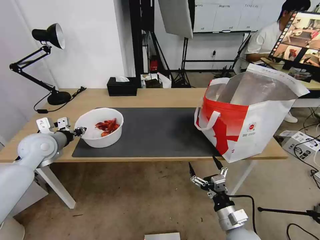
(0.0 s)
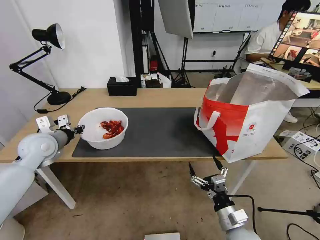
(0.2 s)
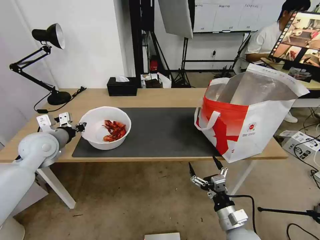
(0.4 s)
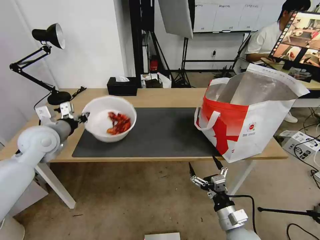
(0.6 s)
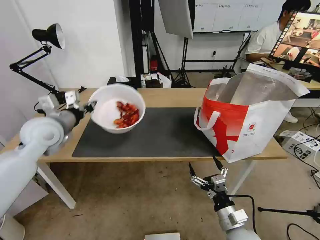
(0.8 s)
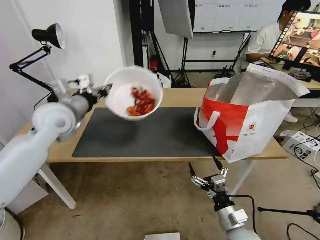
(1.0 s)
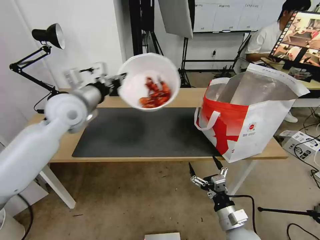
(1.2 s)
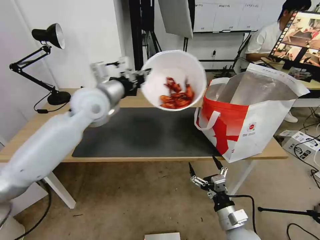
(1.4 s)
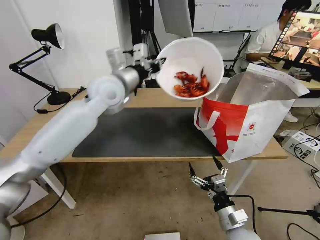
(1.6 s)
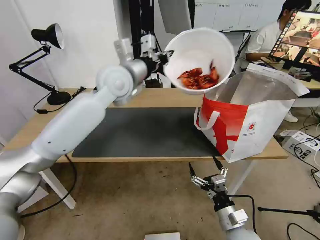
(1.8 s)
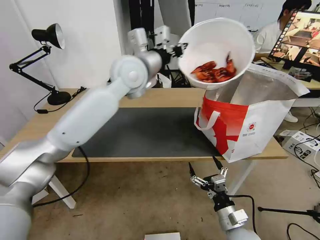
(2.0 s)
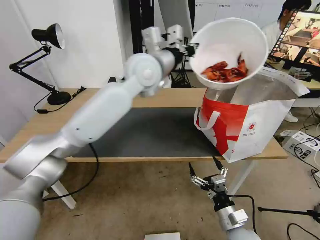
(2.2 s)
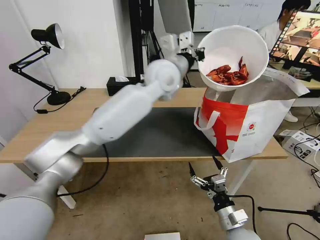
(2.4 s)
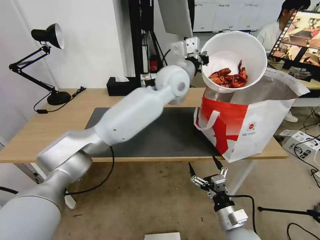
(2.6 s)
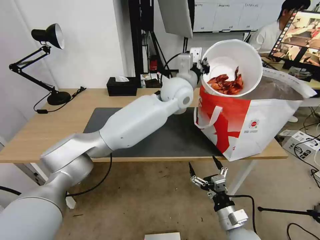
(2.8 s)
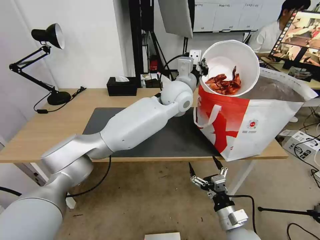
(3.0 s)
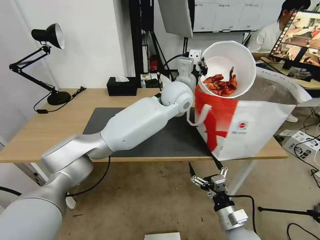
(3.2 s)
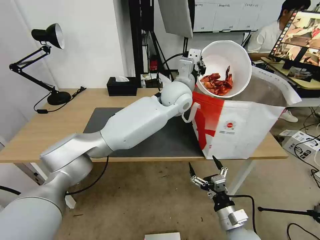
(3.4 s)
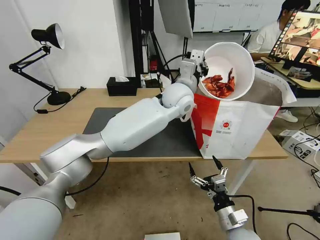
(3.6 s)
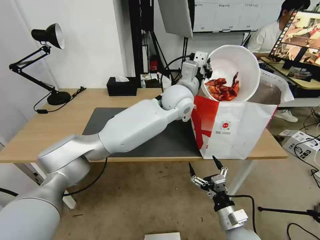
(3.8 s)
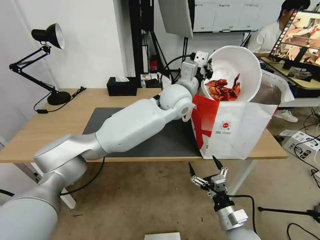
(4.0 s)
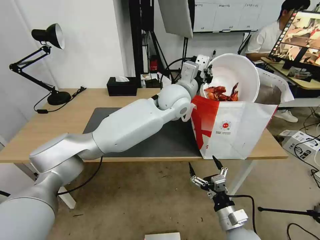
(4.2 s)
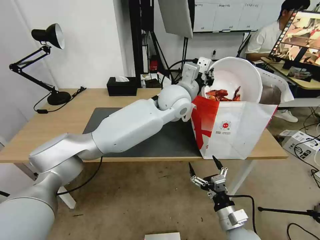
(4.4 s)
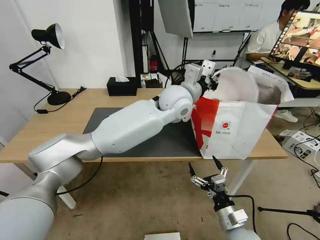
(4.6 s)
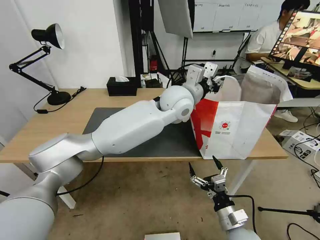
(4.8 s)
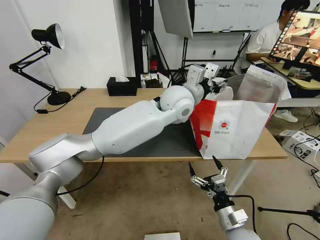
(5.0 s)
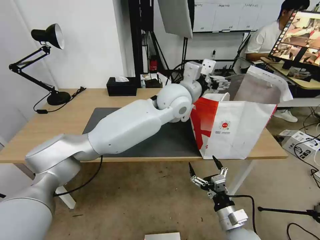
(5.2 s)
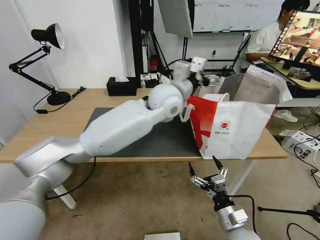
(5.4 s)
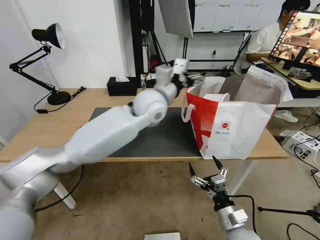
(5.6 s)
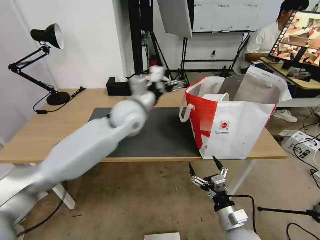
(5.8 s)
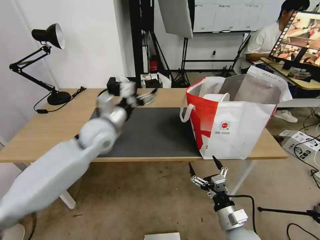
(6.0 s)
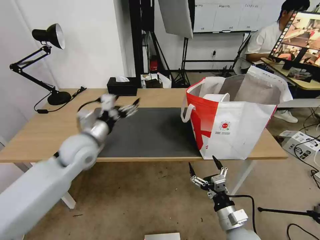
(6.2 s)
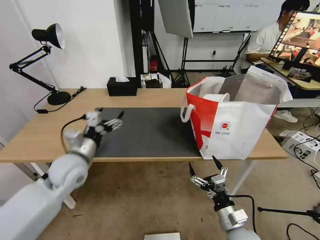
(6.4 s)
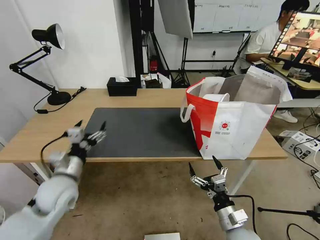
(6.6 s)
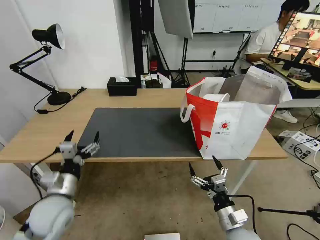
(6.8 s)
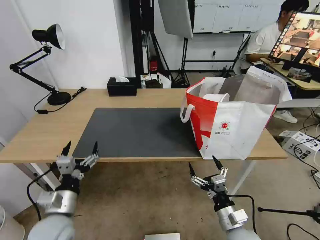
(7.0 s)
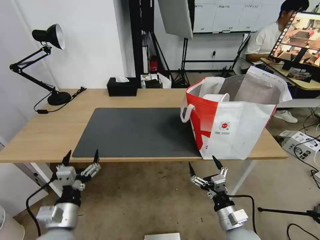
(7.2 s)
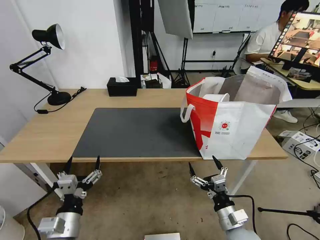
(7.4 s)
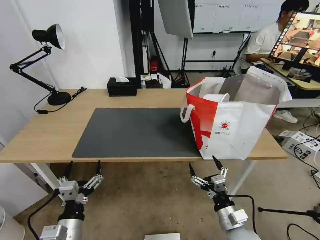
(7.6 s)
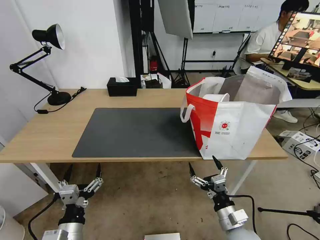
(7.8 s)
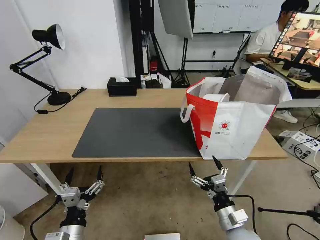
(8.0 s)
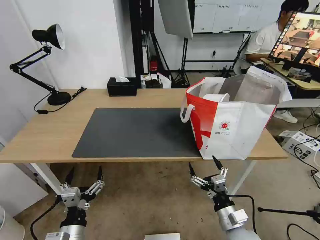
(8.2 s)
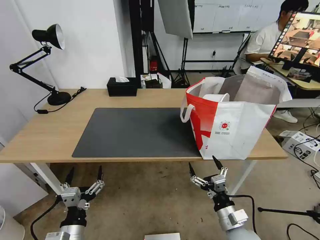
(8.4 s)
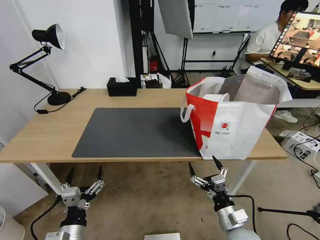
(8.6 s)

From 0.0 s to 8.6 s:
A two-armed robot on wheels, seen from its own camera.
Task of the whole recording: Pick up the trash from the table and place it into the takeout bag.
From 0.0 s to 1.4 s: The left gripper heads to the right and upward, covering approximately 25 cm.
From 1.4 s to 2.8 s: The left gripper goes roughly 25 cm to the right.
From 2.8 s to 4.4 s: The grippers make only small movements.
From 4.4 s to 5.8 s: The left gripper travels to the left by about 15 cm, and opens its fingers.
From 5.8 s to 7.2 s: The left gripper travels backward, downward and to the left by approximately 40 cm.
From 7.2 s to 8.6 s: The left gripper shifts by about 5 cm.

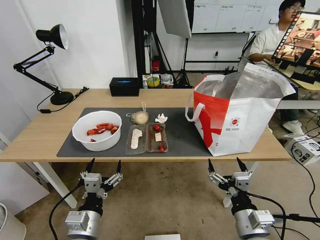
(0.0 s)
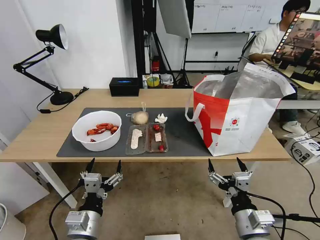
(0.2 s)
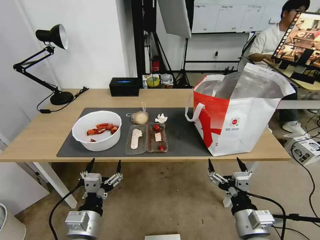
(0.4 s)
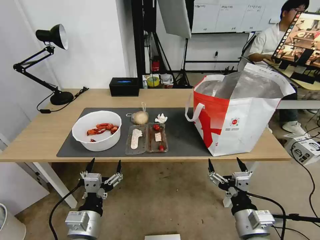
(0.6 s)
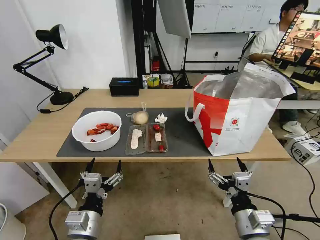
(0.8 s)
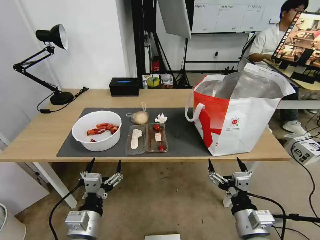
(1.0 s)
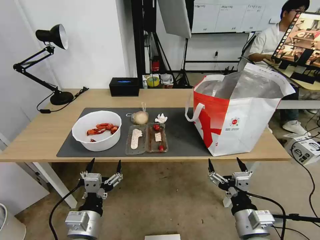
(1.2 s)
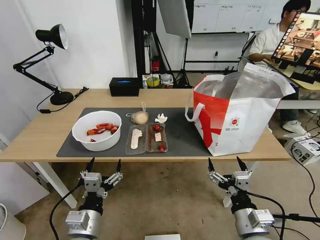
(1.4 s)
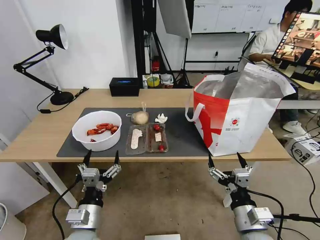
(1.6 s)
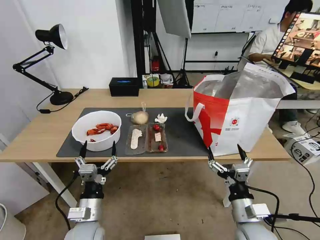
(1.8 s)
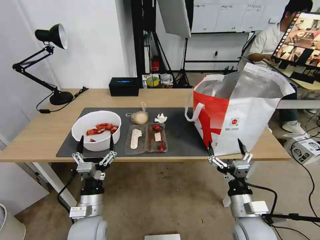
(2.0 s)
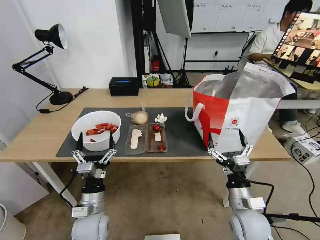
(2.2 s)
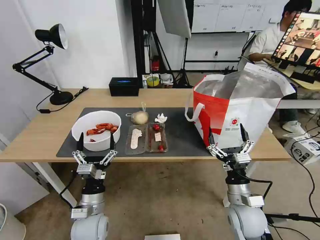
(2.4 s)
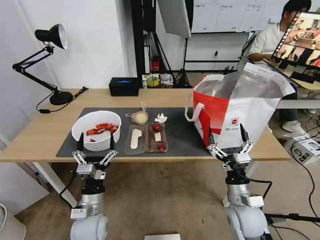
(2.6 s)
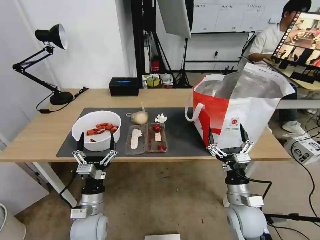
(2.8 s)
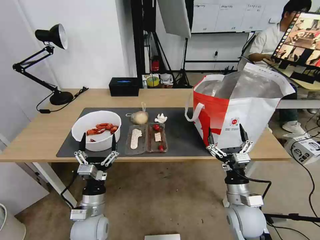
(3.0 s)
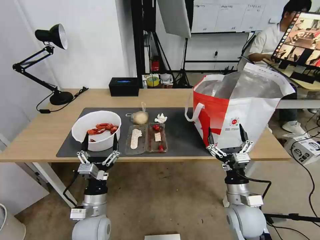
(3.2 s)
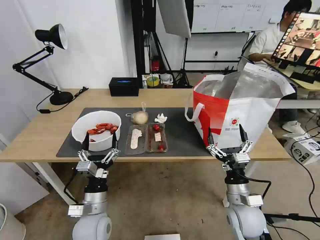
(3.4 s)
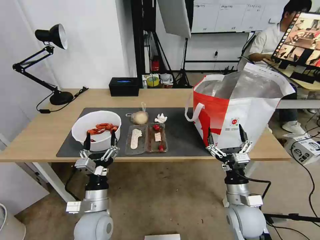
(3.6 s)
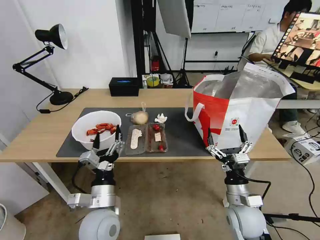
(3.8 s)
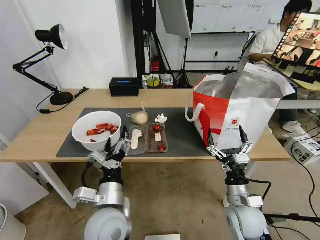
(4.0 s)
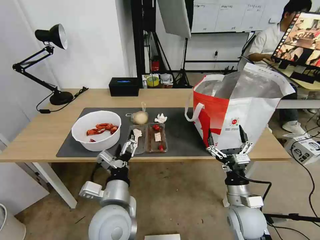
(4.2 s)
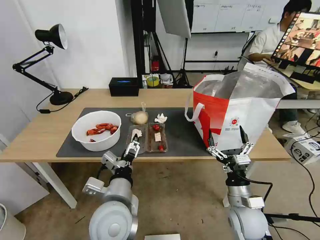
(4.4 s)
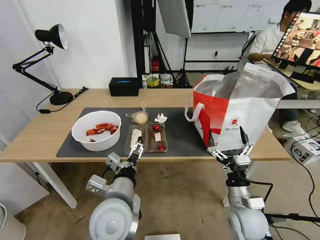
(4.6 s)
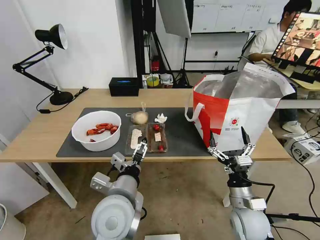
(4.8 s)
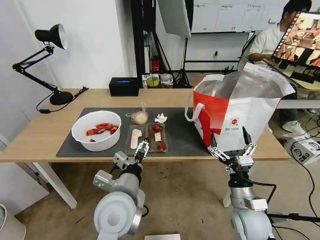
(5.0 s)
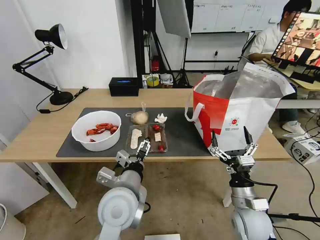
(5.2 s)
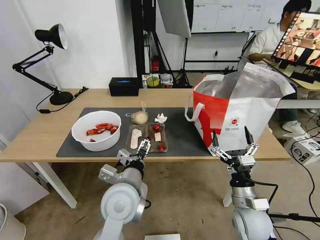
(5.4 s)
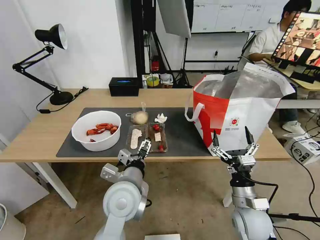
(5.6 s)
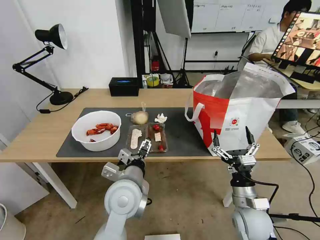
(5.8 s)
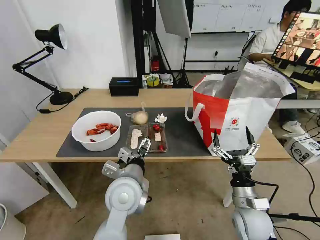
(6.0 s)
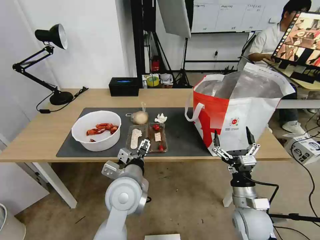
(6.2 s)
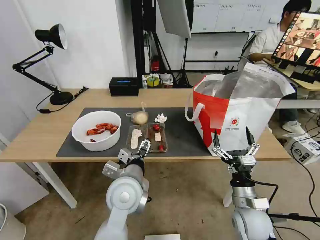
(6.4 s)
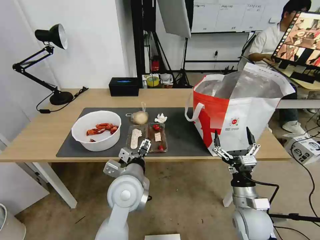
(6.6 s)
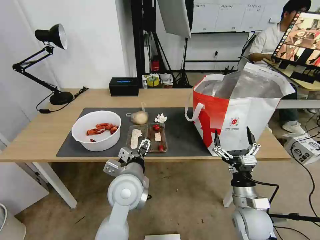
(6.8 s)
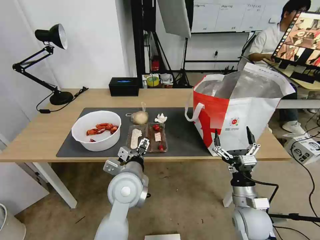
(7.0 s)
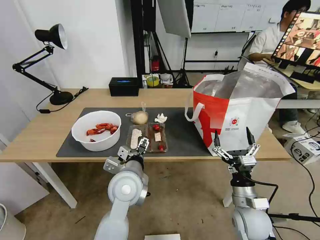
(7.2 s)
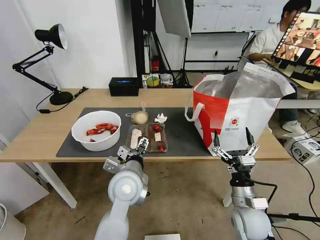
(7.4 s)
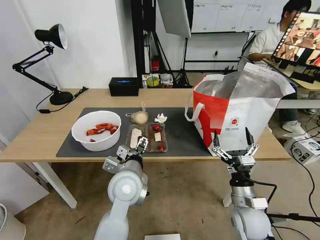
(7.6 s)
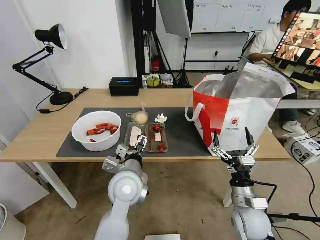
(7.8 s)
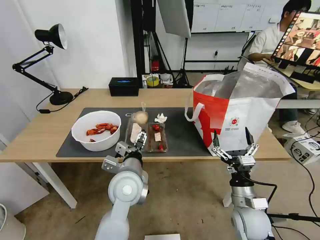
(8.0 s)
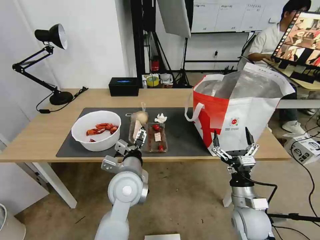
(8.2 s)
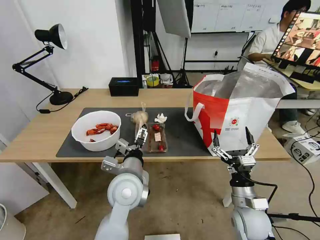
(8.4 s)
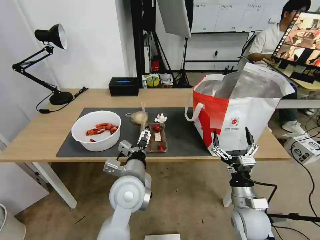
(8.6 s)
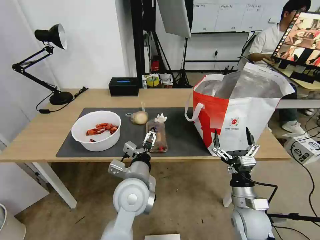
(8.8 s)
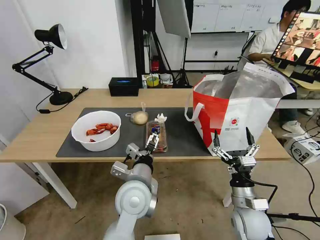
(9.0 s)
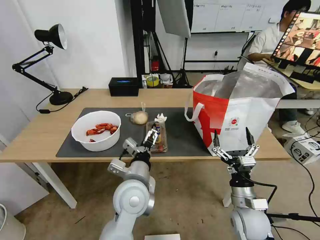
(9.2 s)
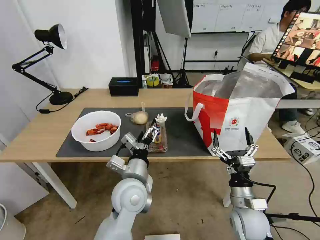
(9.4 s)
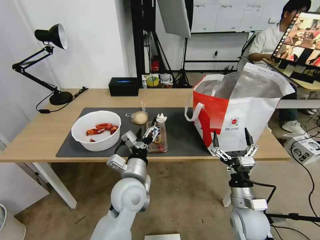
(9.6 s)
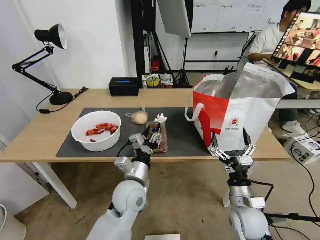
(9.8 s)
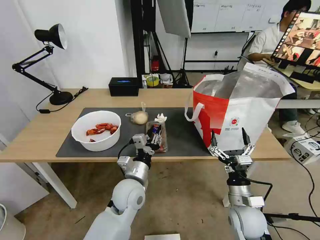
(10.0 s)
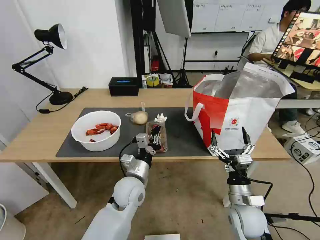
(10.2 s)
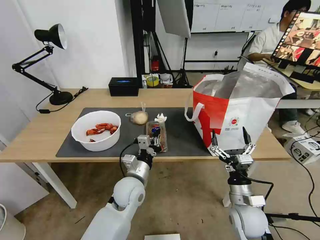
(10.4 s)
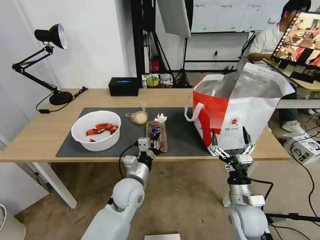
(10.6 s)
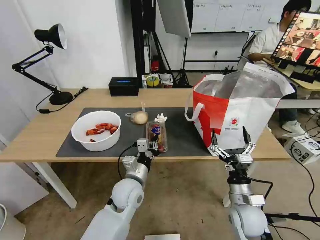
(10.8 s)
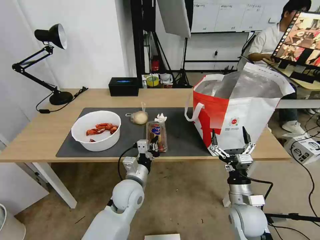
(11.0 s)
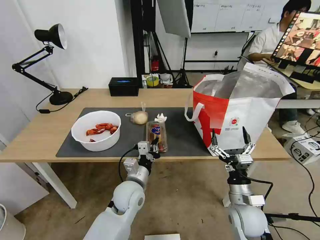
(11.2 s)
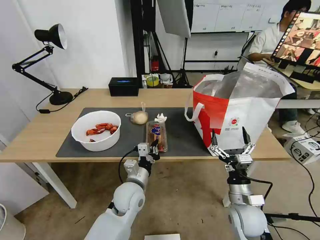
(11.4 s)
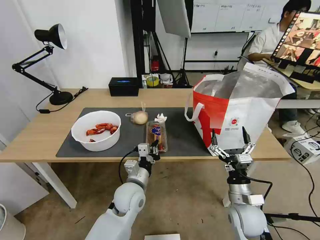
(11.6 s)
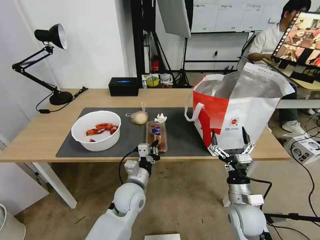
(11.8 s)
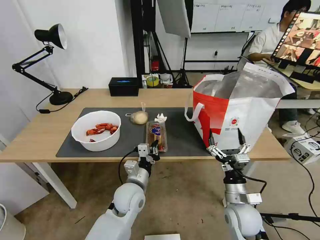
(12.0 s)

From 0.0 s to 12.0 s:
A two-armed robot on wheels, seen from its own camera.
Task of the whole recording: Pick up the trash from the table and place it into the takeout bag.
From 1.6 s to 3.0 s: The left gripper moves forward, approximately 5 cm. Meanwhile the right gripper shifts approximately 10 cm forward.
From 3.0 s to 4.4 s: The left gripper is displaced upward and to the right by about 15 cm.
From 4.4 s to 6.0 s: The left gripper moves forward, approximately 5 cm.
From 6.0 s to 9.0 s: The grippers make only small movements.
From 9.0 s to 10.4 s: The left gripper shifts some 5 cm downward, and closes up.
From 10.4 s to 12.0 s: The grippers move only a little.

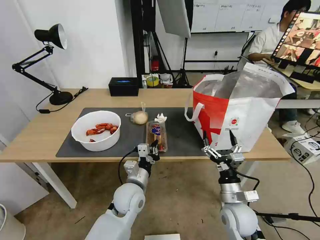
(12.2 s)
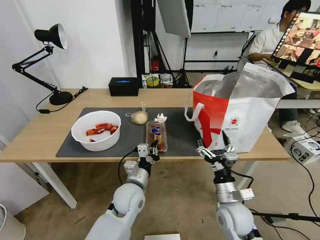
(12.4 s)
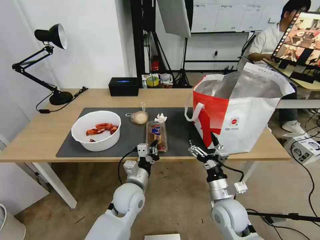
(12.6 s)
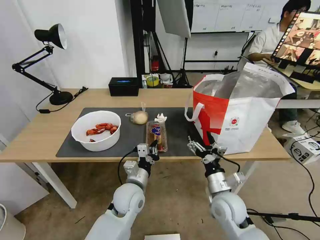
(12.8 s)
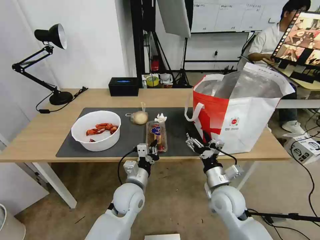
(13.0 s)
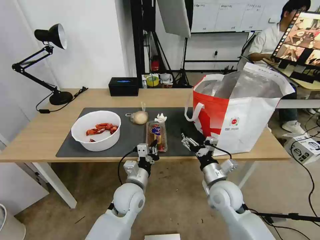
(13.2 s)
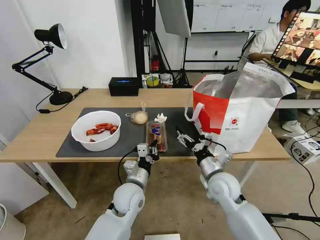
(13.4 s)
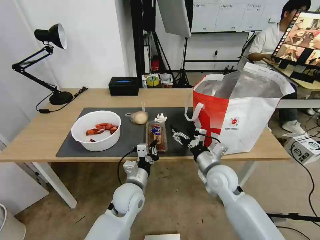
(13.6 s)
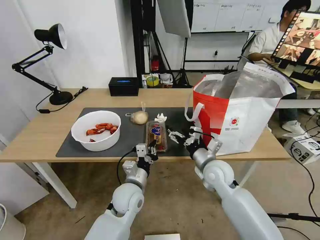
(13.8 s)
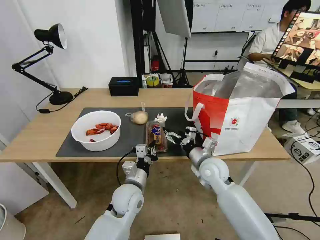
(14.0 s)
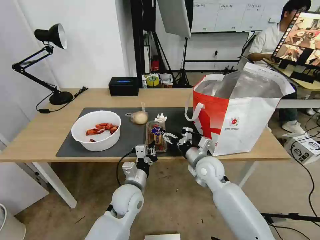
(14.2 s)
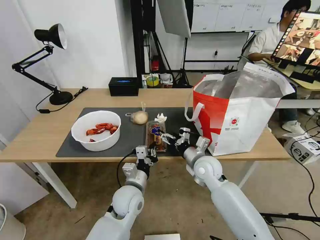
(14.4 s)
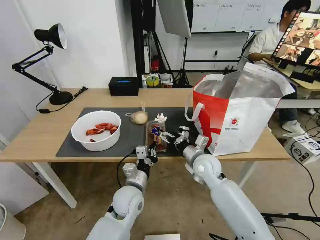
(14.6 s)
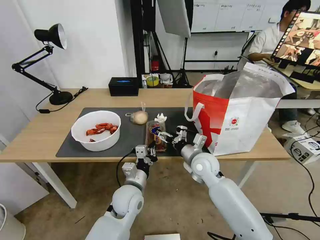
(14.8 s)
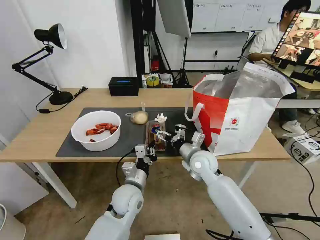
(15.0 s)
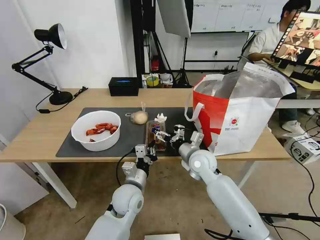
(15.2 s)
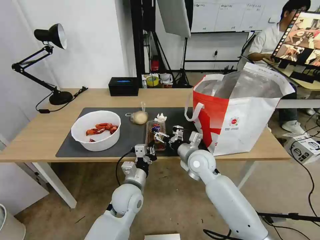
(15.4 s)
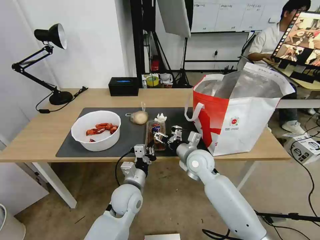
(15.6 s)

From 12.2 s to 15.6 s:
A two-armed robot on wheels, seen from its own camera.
Task of the whole recording: Pick up the trash from the table and place it into the takeout bag.
From 12.2 s to 13.8 s: The right gripper goes roughly 15 cm forward and upward.
From 13.8 s to 15.6 s: The right gripper moves to the left, some 5 cm.
